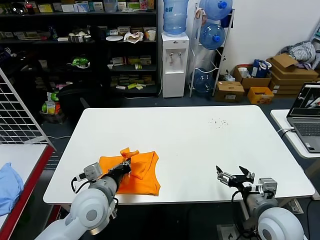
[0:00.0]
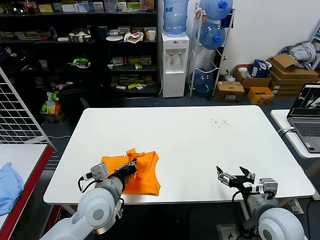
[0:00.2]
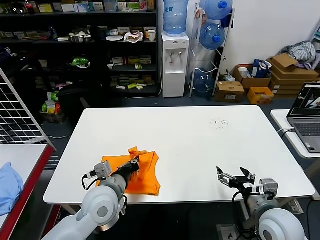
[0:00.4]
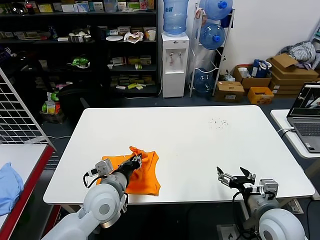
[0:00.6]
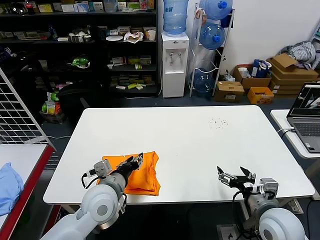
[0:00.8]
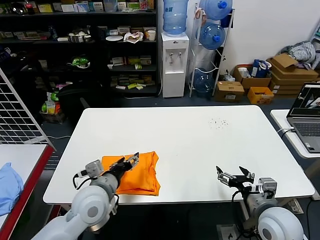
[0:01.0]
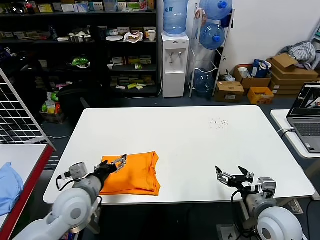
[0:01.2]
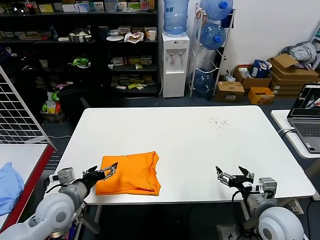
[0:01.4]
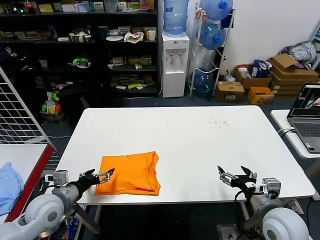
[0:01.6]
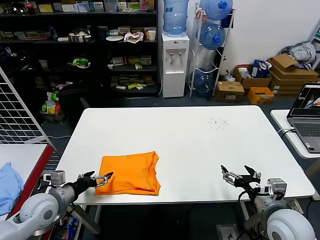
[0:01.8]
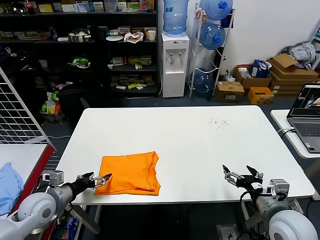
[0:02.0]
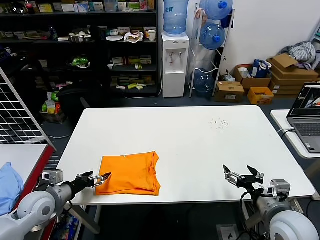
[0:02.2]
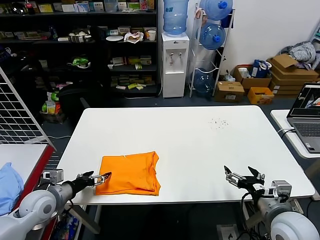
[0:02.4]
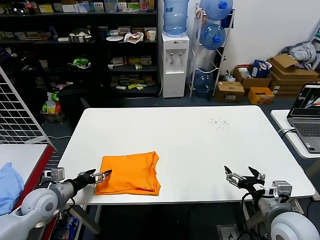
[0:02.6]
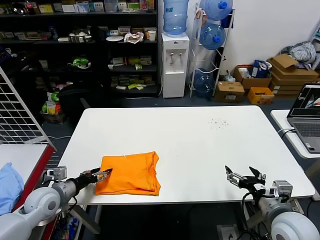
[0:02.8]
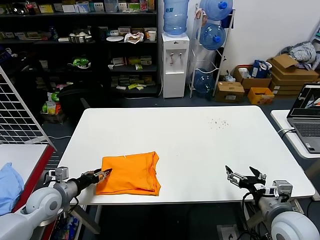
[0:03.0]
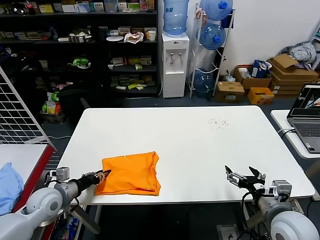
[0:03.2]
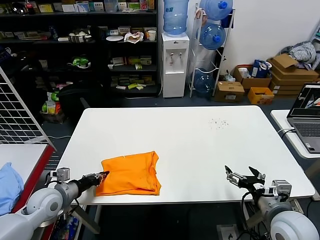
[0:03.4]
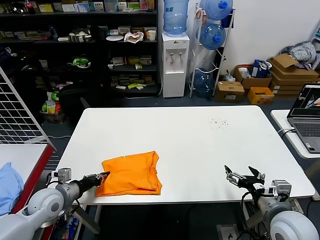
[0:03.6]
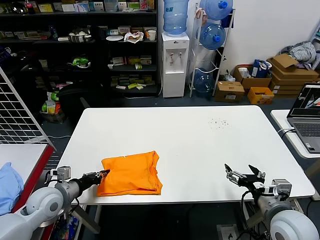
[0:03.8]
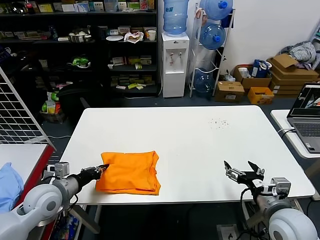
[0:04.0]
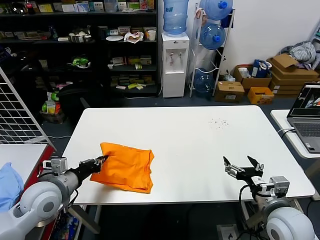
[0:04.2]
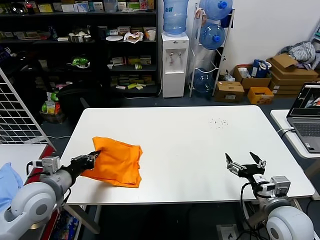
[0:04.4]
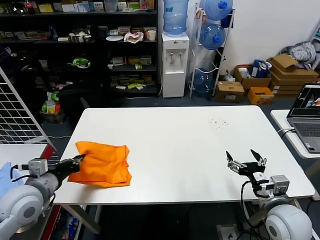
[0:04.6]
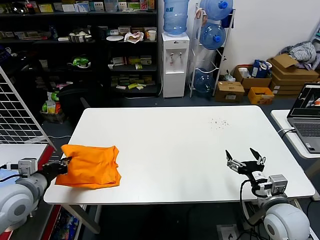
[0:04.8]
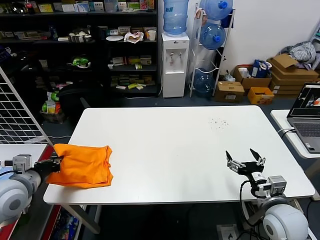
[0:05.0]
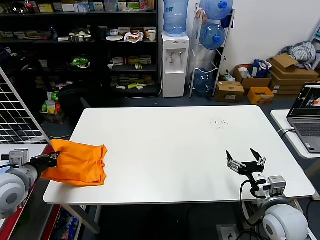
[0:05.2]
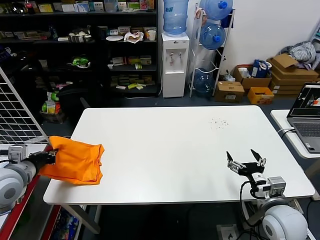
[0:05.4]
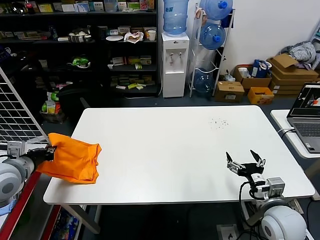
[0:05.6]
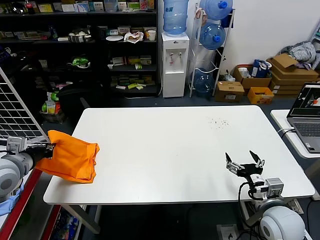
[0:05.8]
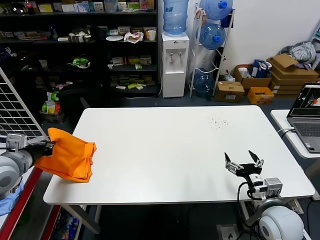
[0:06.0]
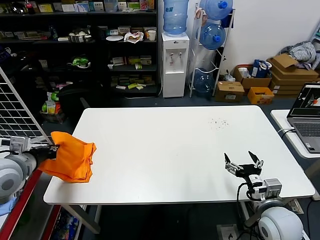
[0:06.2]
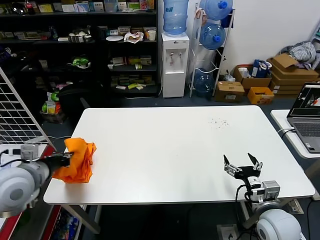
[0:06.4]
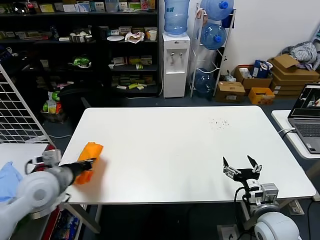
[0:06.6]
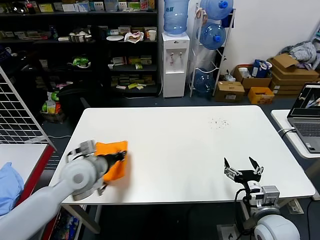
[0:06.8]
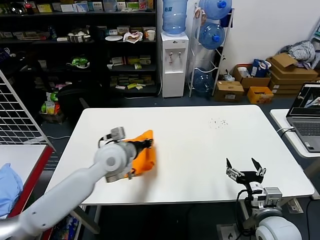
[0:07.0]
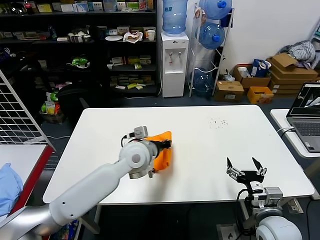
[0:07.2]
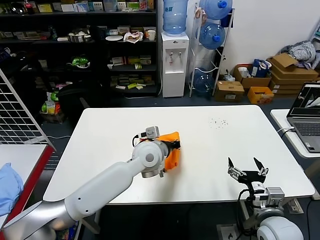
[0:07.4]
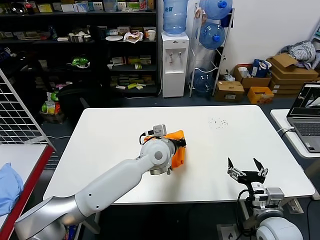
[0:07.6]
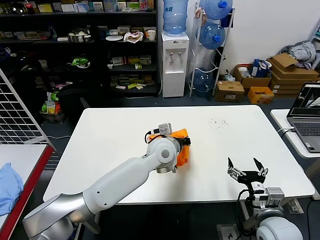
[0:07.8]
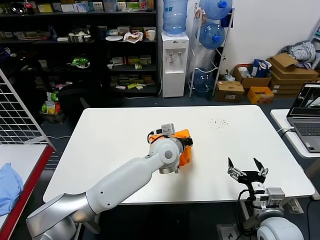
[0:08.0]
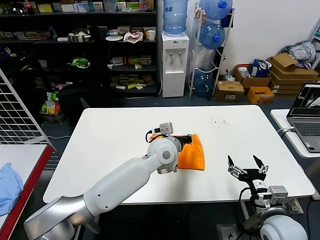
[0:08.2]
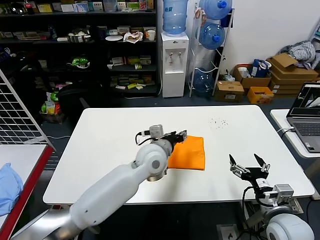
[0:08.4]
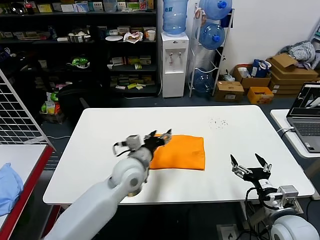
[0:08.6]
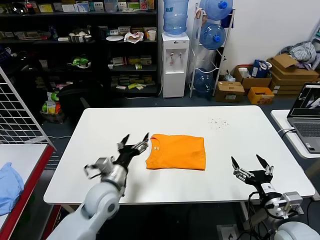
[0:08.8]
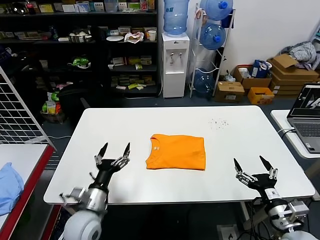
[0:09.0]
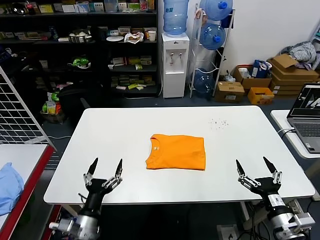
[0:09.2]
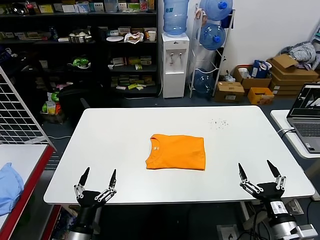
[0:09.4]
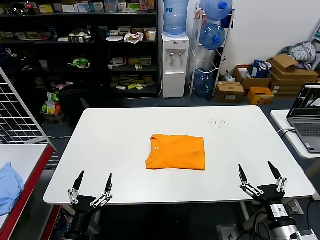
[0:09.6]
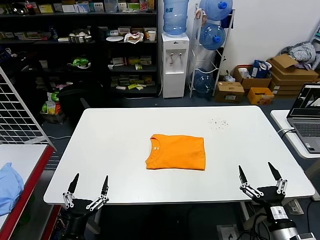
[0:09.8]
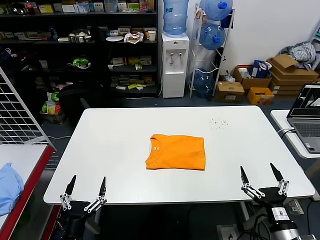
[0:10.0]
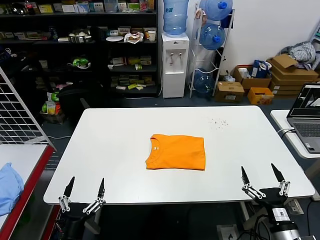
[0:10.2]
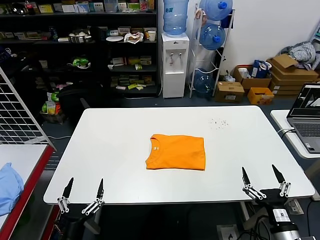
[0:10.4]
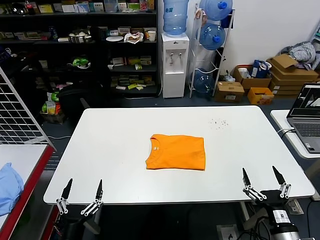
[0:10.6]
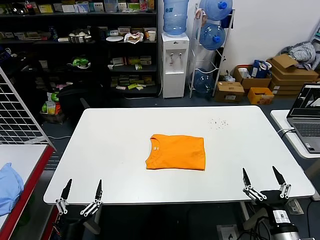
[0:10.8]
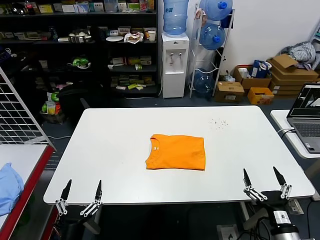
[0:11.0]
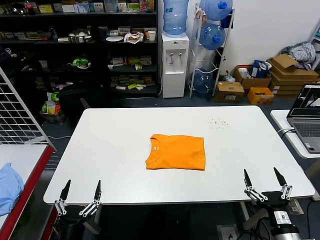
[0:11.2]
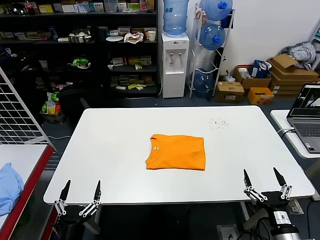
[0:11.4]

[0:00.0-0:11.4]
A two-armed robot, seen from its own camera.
Task of the whole recording: fold and organize the clothes.
Step, 0:00.8 to 0:08.0: Flip the folded clothes over with left gripper.
0:00.0 to 0:01.4: The left gripper is displaced to the left by roughly 10 cm, and opens.
0:01.4 to 0:02.8: The left gripper moves to the left and downward, approximately 10 cm.
0:02.8 to 0:04.2: The left gripper travels upward by approximately 10 cm, and closes its fingers.
0:04.2 to 0:05.6: The left gripper moves to the left and upward, some 10 cm.
0:05.6 to 0:07.2: The left gripper is displaced to the right by about 30 cm.
0:07.2 to 0:08.6: The left gripper reaches about 10 cm to the right, then returns, and opens its fingers.
0:08.6 to 0:10.0: The left gripper heads backward, to the left and downward, covering about 35 cm, and opens, while the right gripper moves backward, approximately 10 cm.
0:10.0 to 0:11.4: The grippers move only a little.
